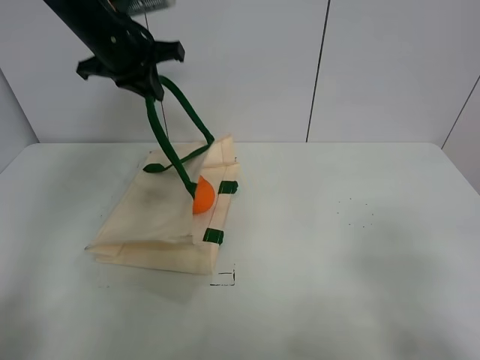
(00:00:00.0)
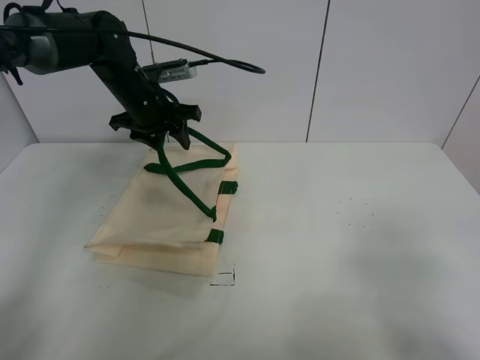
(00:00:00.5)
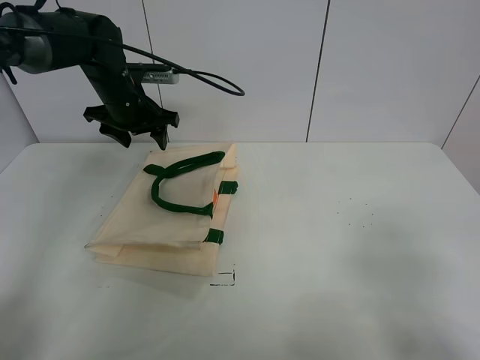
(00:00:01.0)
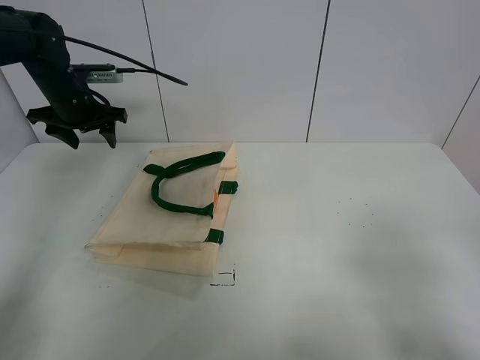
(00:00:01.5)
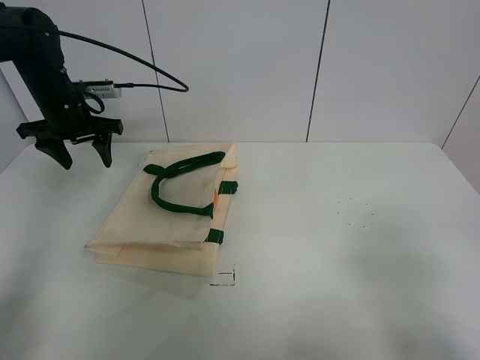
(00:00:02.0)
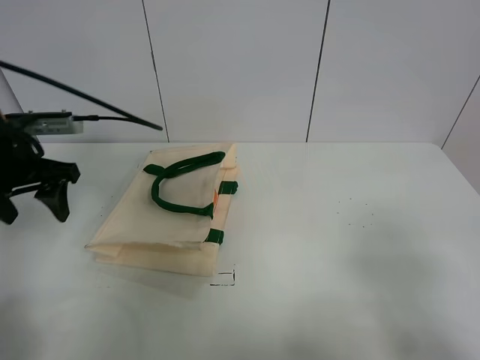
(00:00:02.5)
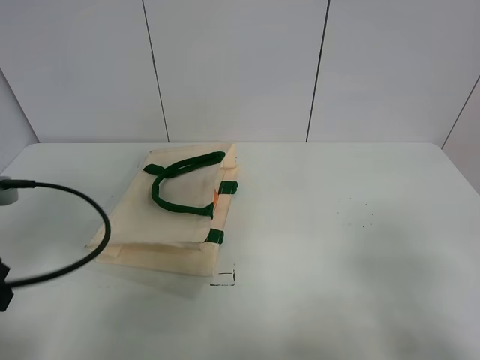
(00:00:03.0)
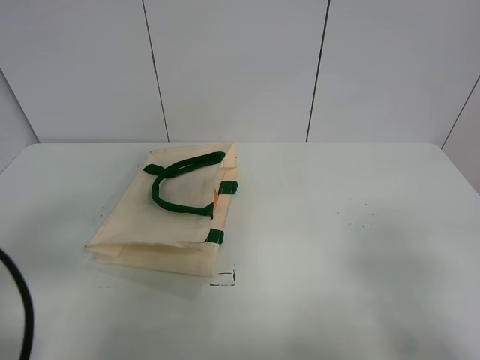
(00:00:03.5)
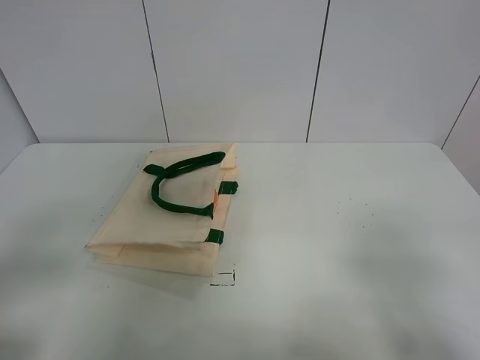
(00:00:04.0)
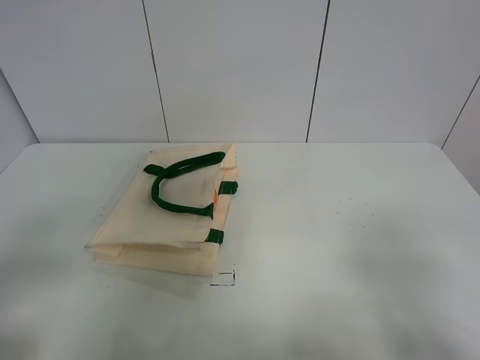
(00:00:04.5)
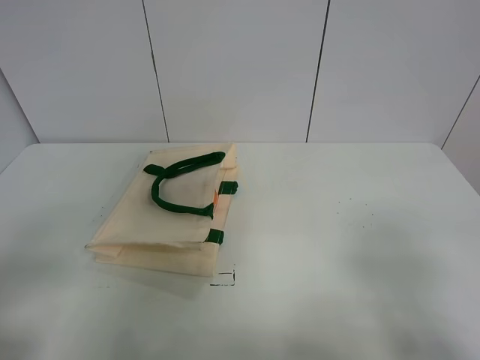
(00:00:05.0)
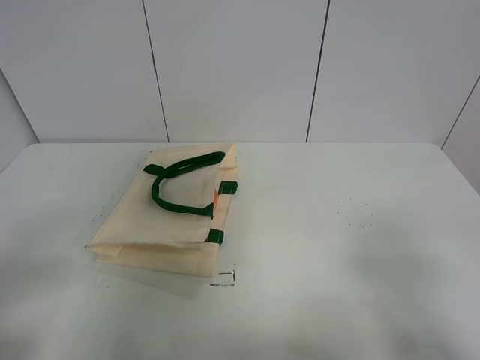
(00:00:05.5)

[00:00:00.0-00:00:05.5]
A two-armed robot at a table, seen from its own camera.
Task of the whole recording: open the white linen bag and put the orange in the bag.
00:00:00.0 to 00:00:02.0: The left gripper goes about 15 cm to the left and downward, and opens.
00:00:02.0 to 00:00:03.5: The left gripper travels backward by roughly 35 cm.
00:00:03.5 to 00:00:05.5: The left gripper moves backward, some 5 cm.
